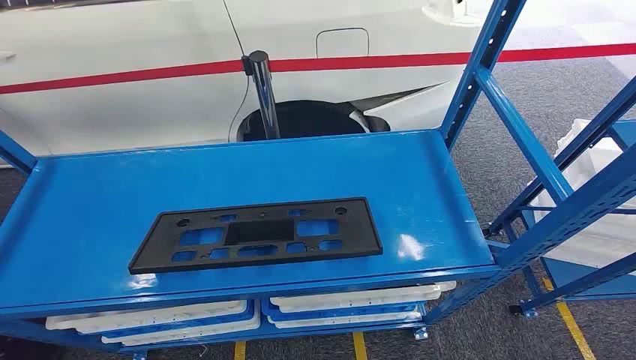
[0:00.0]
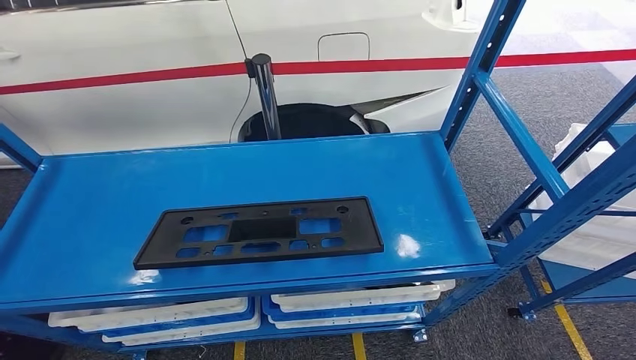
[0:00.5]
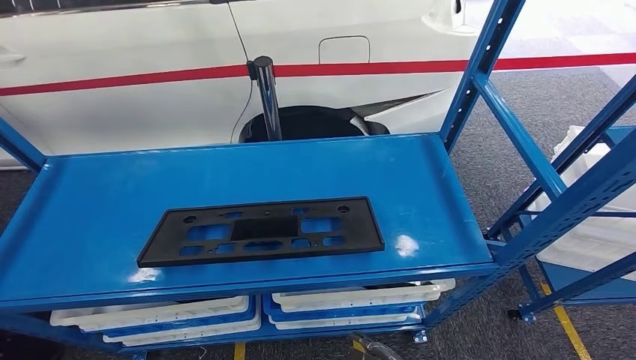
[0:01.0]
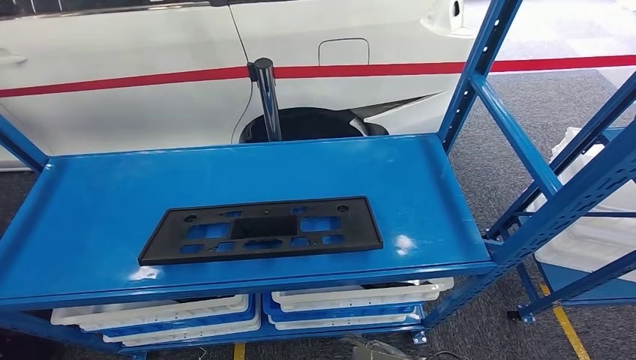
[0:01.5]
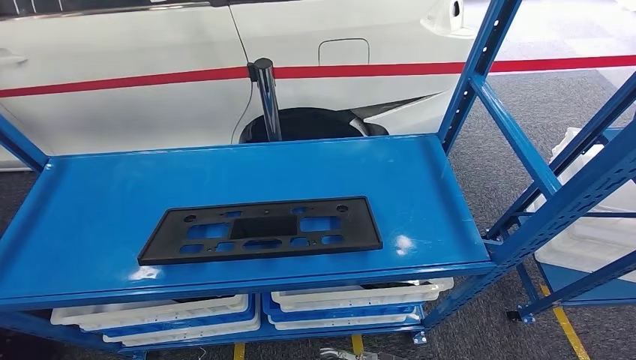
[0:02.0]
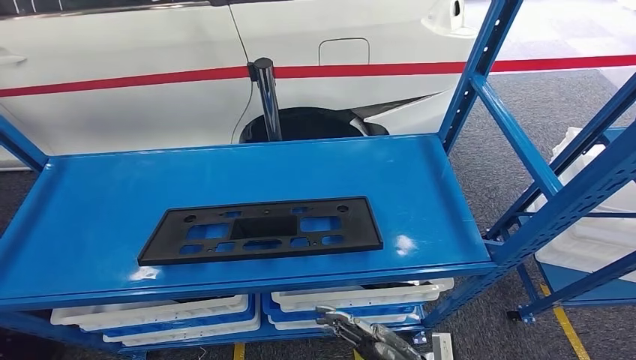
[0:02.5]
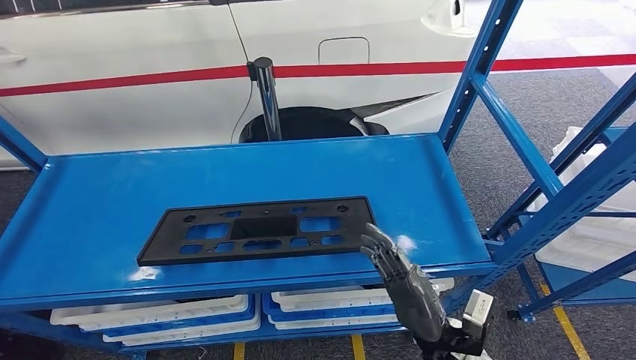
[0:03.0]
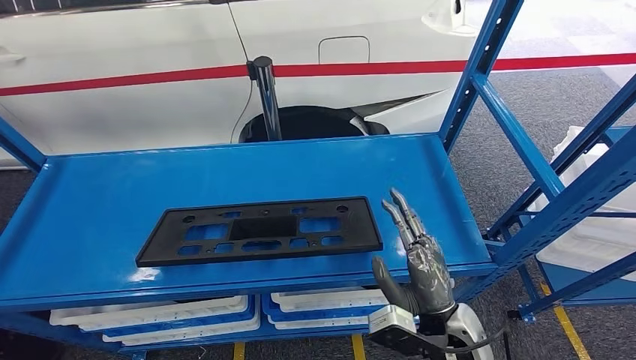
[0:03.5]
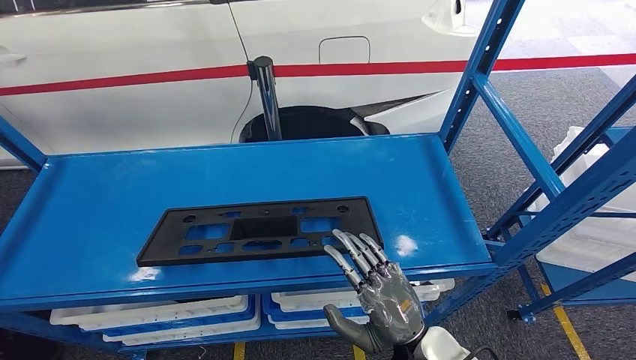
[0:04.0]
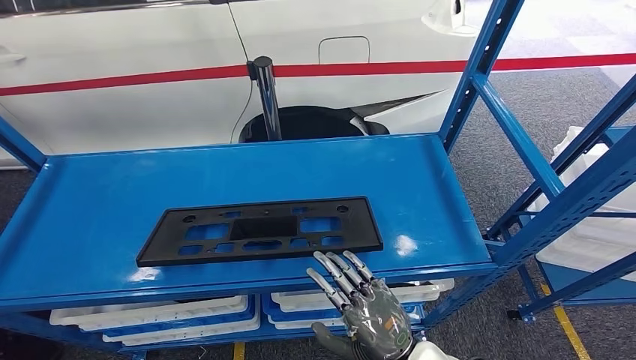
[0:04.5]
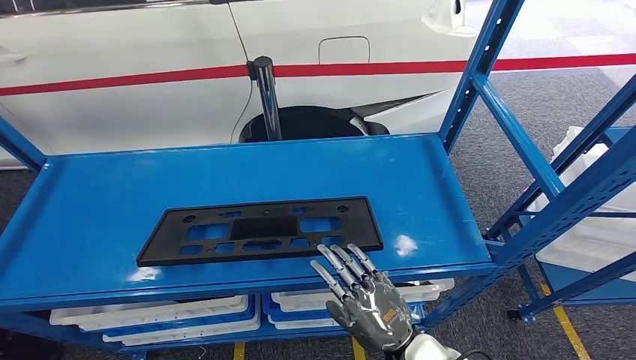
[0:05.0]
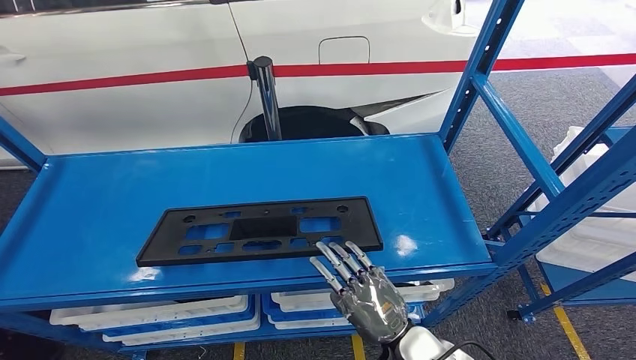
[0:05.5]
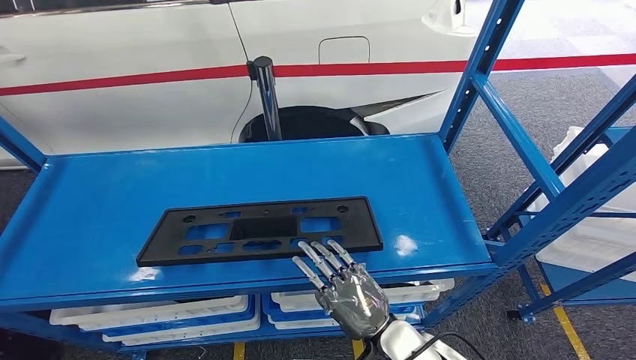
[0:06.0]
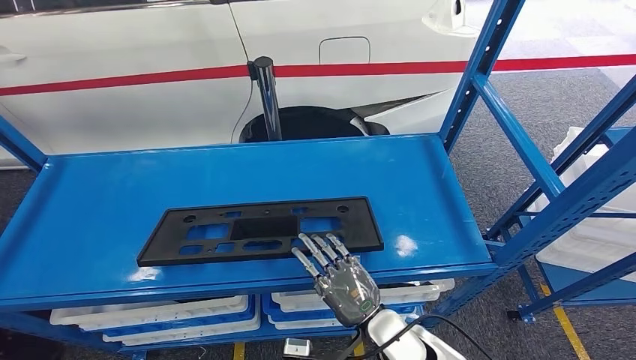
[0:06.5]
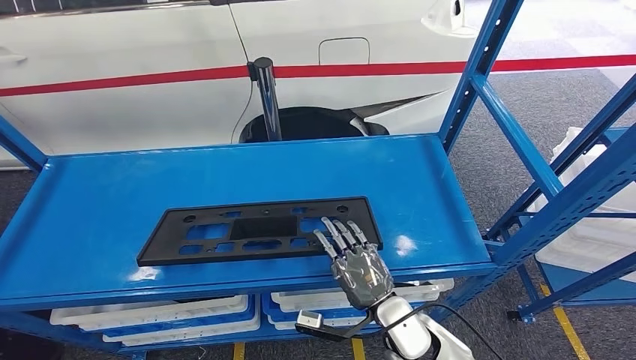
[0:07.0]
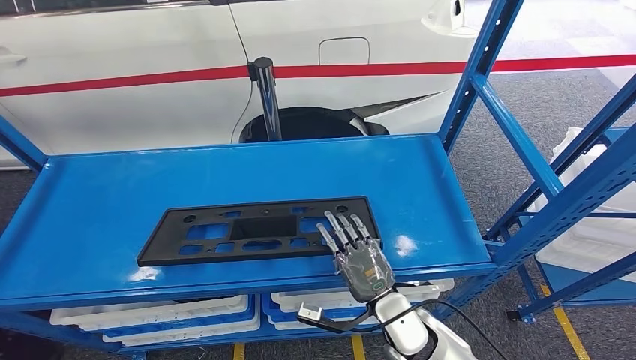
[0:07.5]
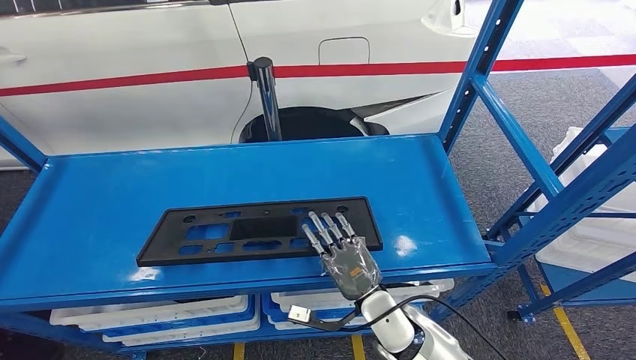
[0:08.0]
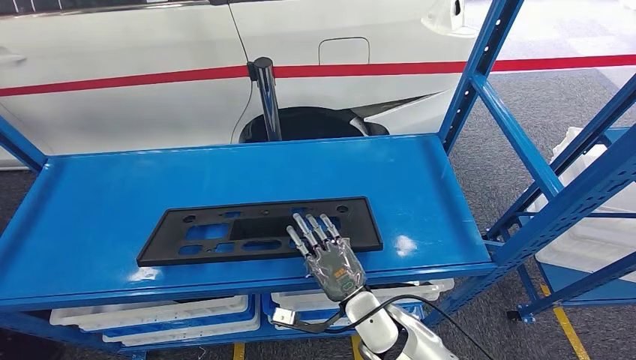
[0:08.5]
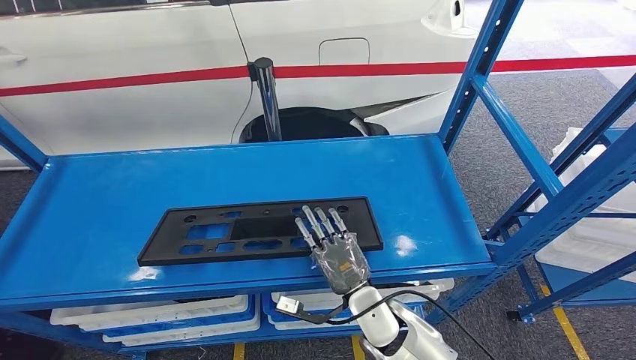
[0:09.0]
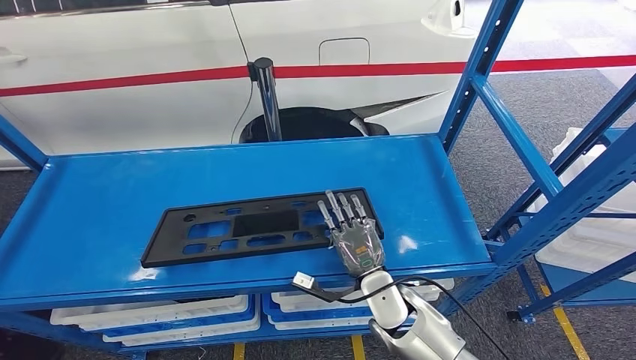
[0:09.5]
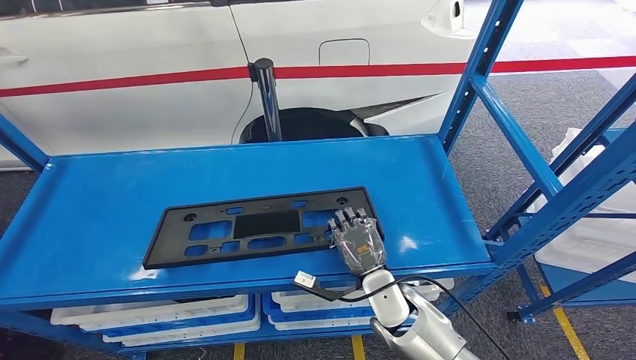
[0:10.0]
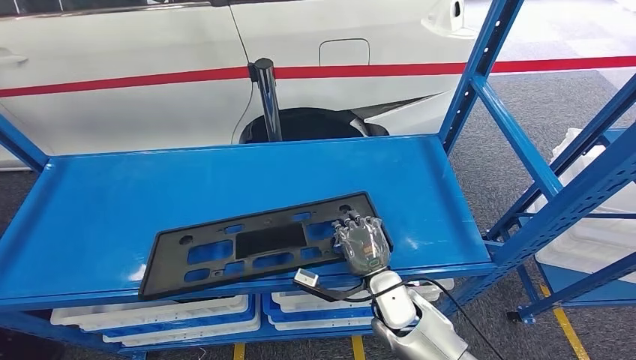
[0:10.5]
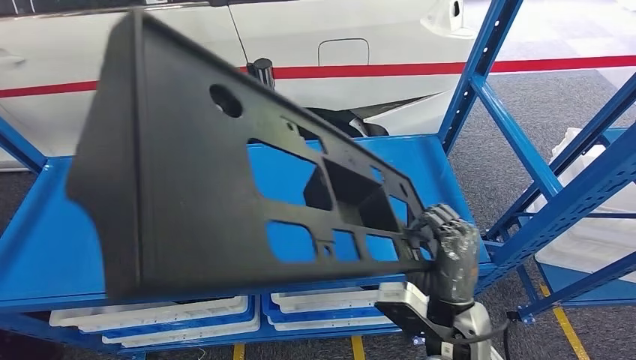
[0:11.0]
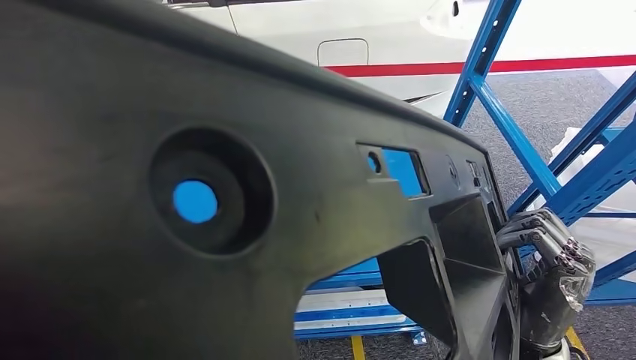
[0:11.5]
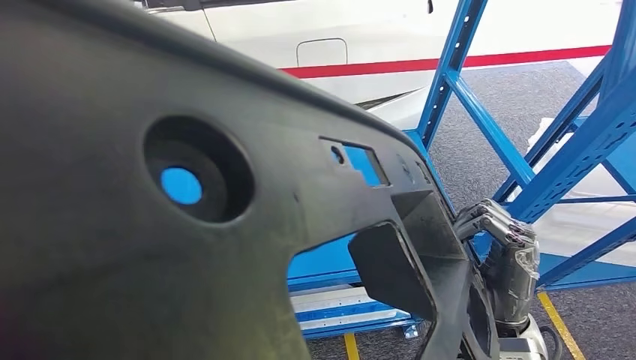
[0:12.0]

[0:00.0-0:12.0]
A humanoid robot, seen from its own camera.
Step, 0:00.0 to 0:10.5: Pick up the large material from the shelf.
0:02.0 to 0:04.0: The right hand is displaced upward and to the left by approximately 15 cm.
0:04.0 to 0:06.0: The right hand moves about 5 cm.
0:06.0 to 0:08.0: The right hand shifts some 5 cm forward.
0:08.0 to 0:10.0: The hands stay close to where they were, moving slightly.

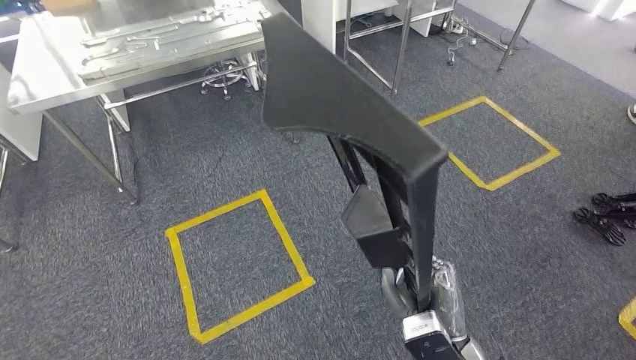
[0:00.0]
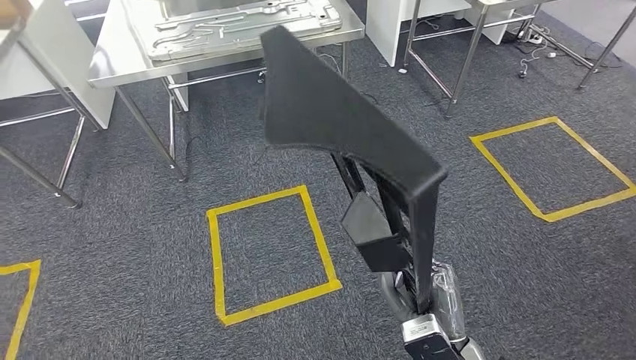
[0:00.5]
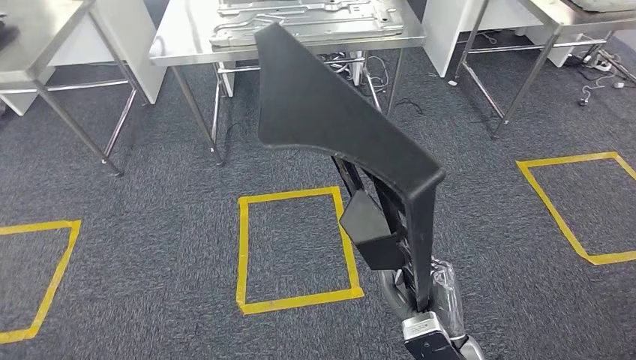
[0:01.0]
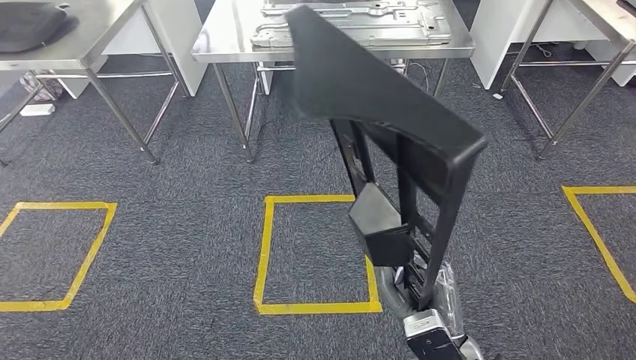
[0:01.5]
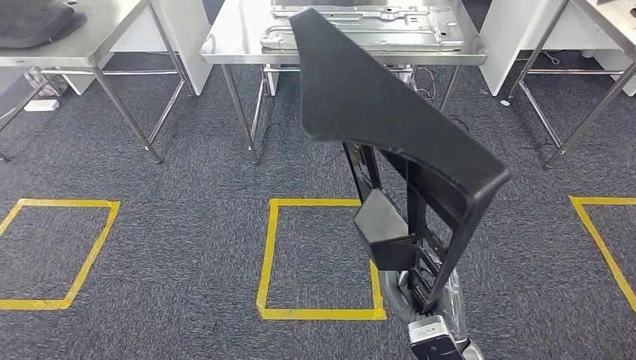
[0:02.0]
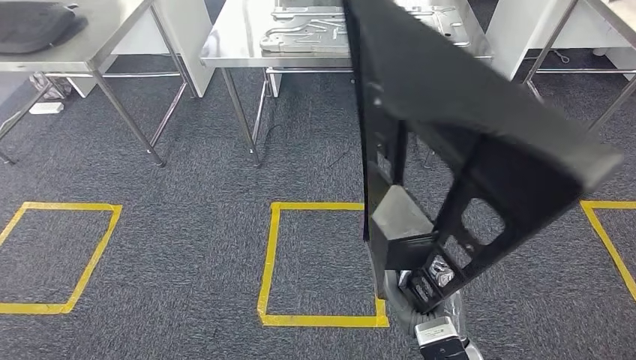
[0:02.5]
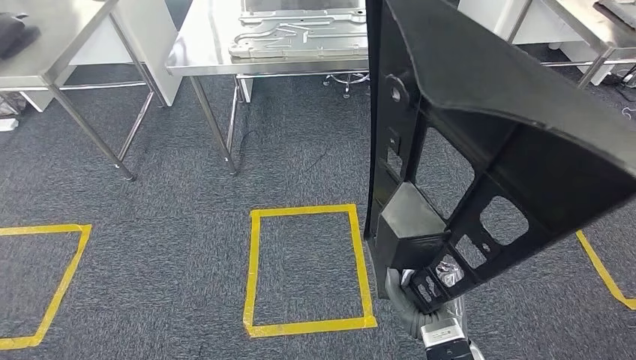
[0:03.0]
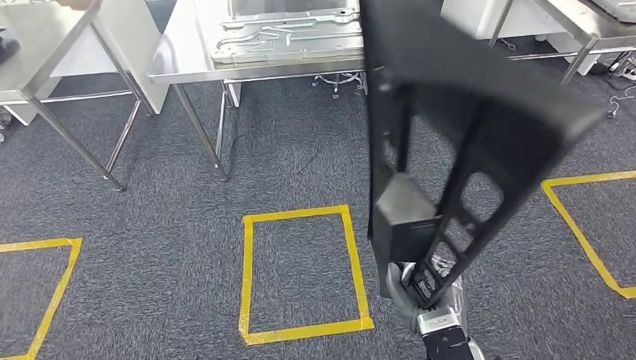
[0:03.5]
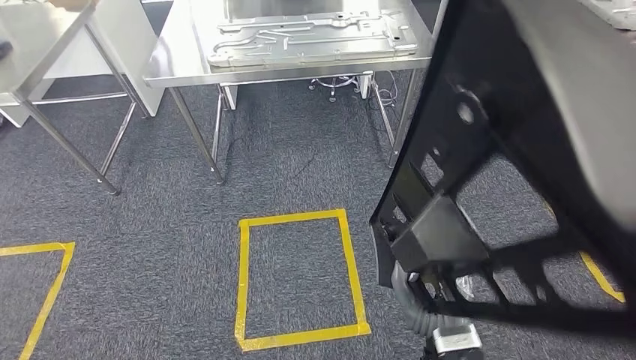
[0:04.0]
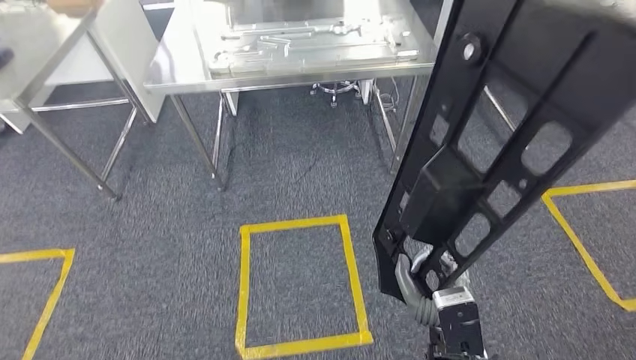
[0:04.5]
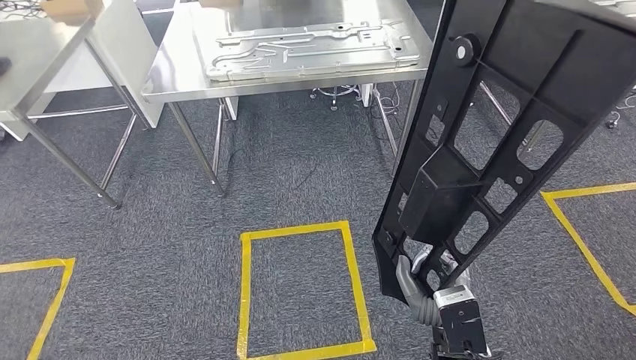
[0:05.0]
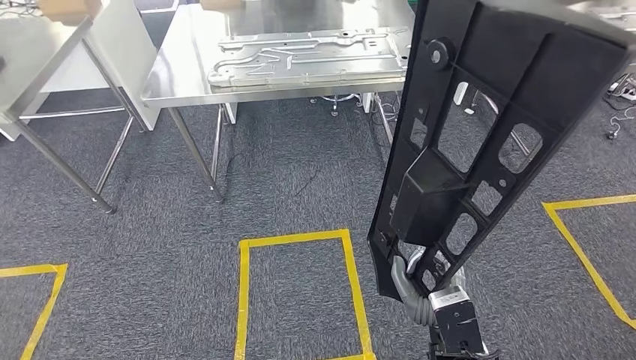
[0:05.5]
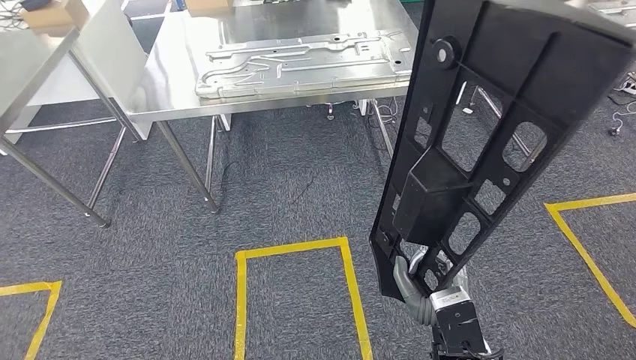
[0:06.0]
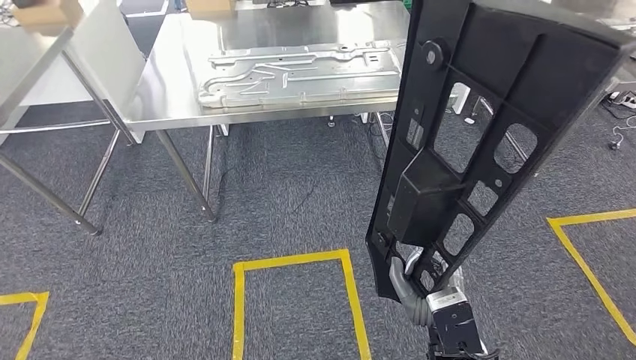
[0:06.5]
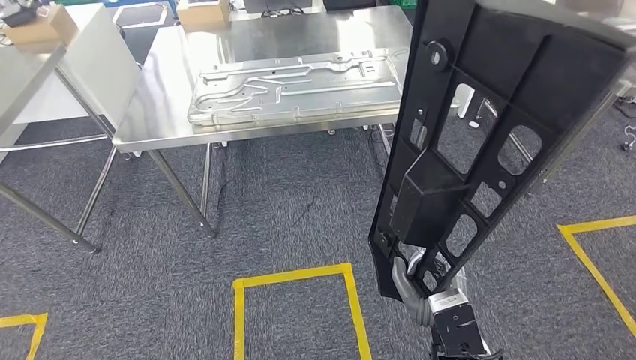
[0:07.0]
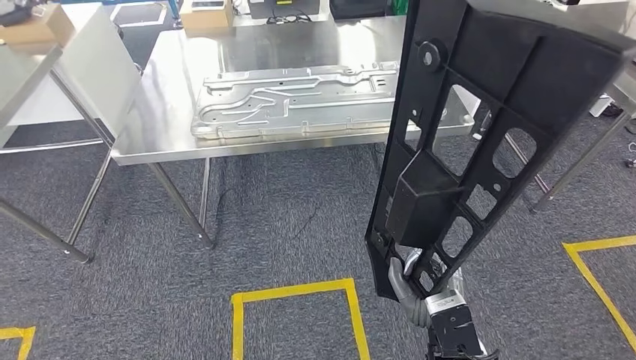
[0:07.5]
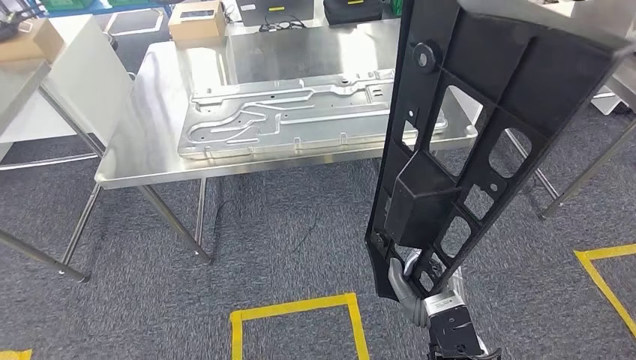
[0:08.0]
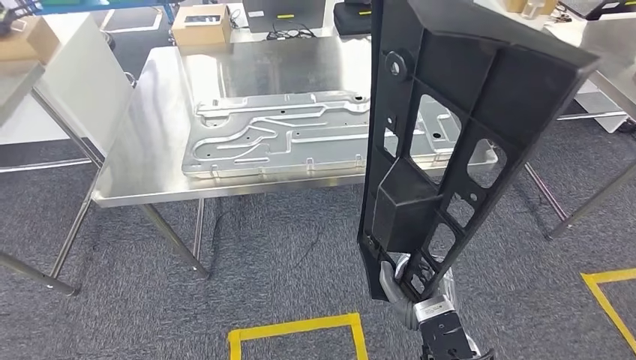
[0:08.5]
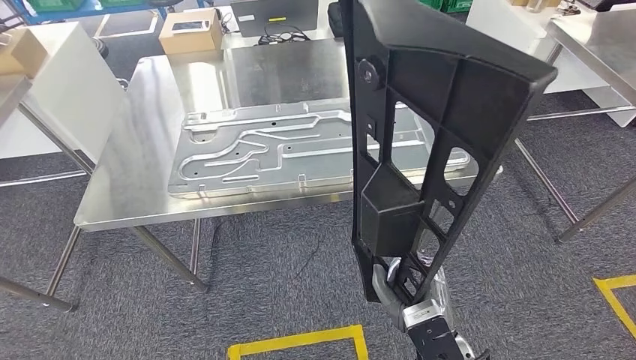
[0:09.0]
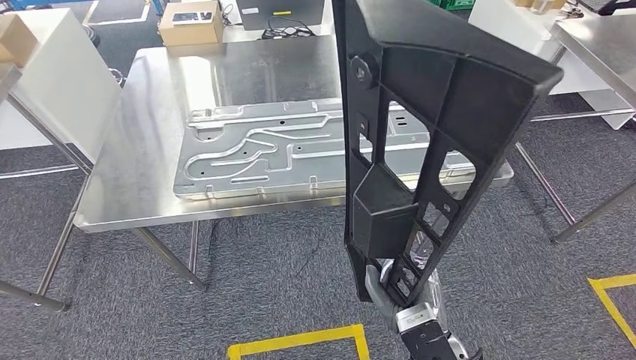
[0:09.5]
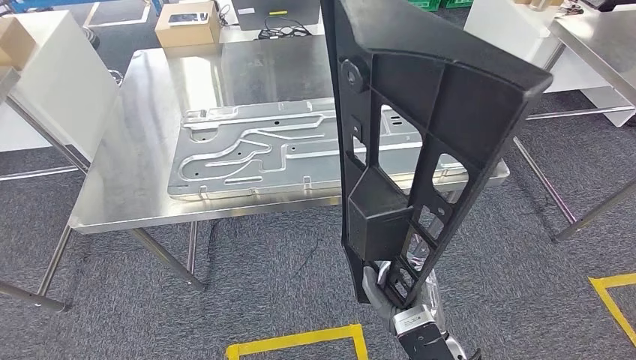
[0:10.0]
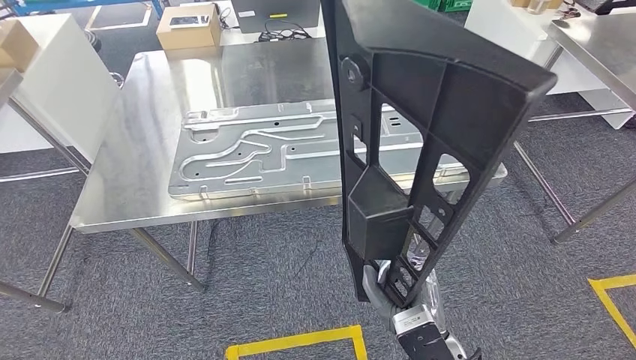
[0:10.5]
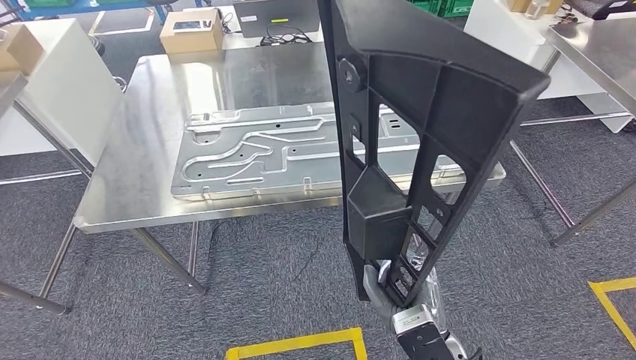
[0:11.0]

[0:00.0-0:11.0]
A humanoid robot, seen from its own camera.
Step, 0:00.0 to 0:09.0: Move the large material to the workbench.
